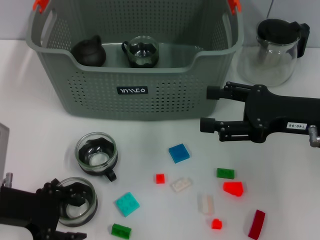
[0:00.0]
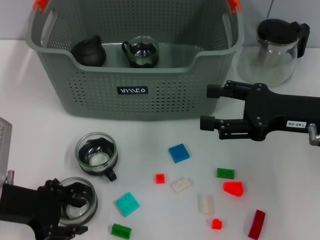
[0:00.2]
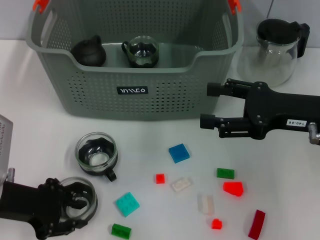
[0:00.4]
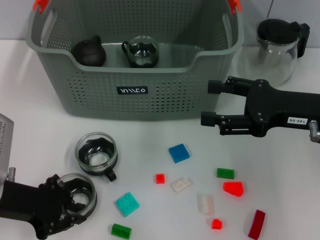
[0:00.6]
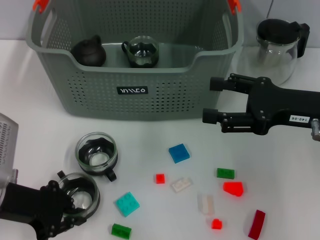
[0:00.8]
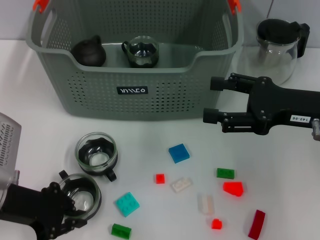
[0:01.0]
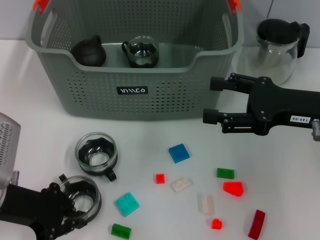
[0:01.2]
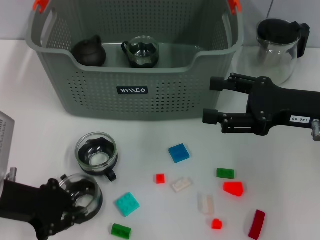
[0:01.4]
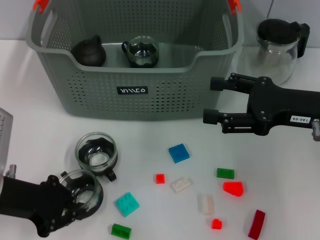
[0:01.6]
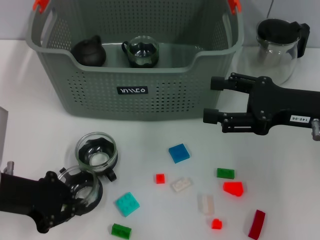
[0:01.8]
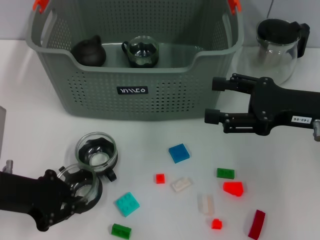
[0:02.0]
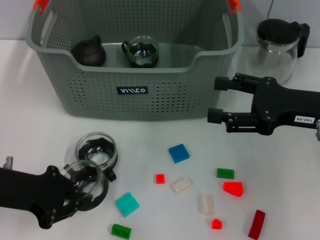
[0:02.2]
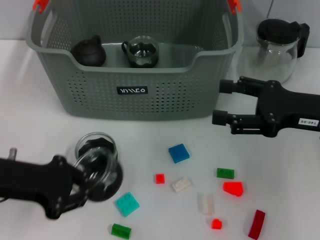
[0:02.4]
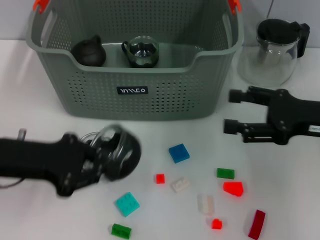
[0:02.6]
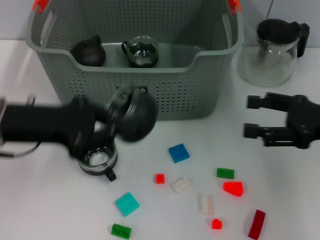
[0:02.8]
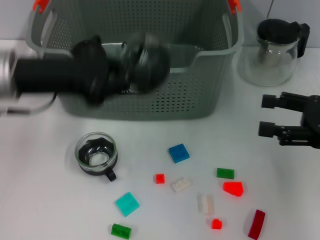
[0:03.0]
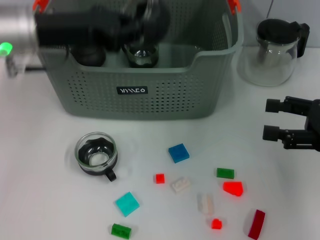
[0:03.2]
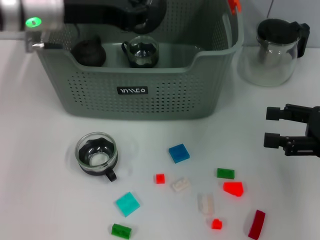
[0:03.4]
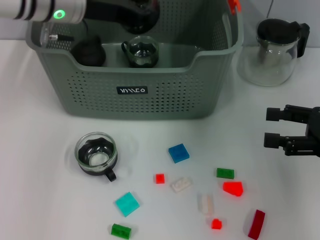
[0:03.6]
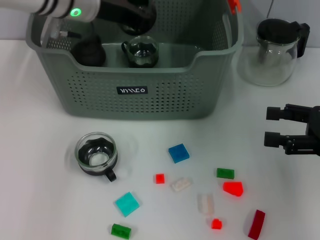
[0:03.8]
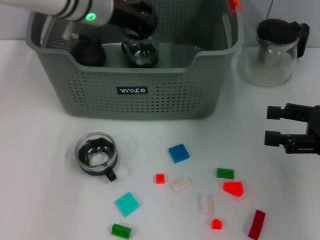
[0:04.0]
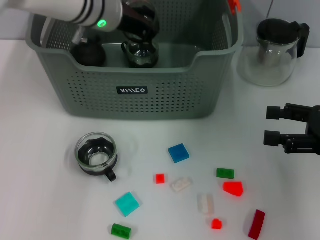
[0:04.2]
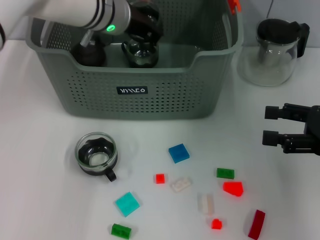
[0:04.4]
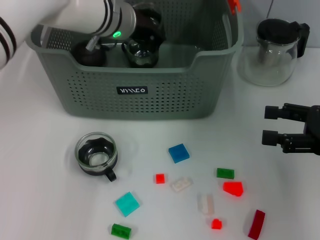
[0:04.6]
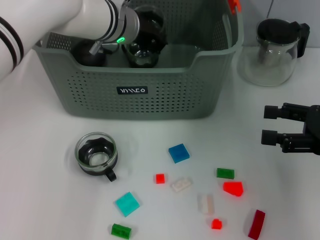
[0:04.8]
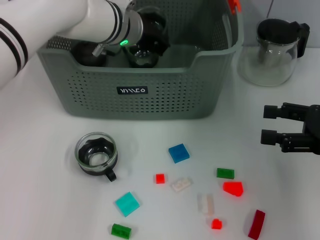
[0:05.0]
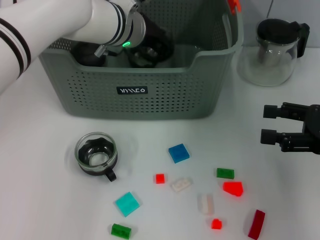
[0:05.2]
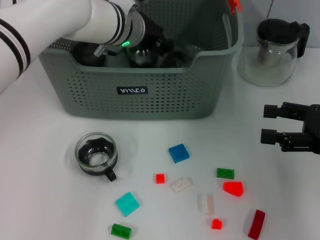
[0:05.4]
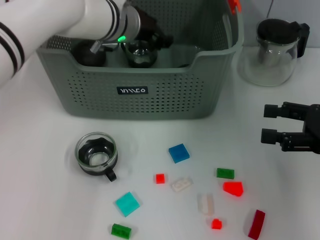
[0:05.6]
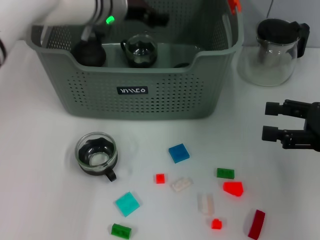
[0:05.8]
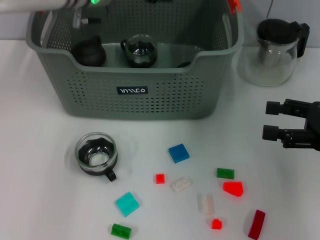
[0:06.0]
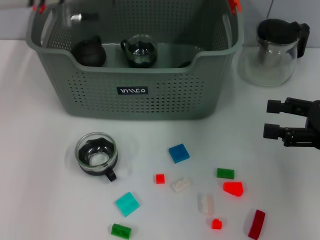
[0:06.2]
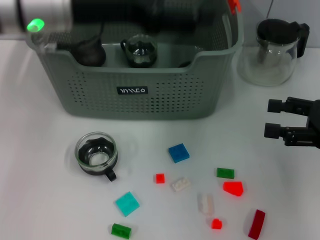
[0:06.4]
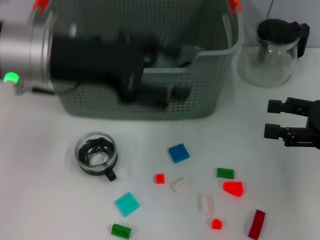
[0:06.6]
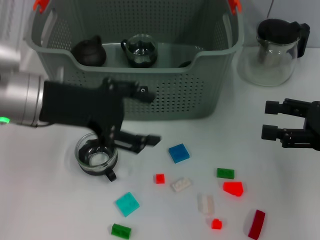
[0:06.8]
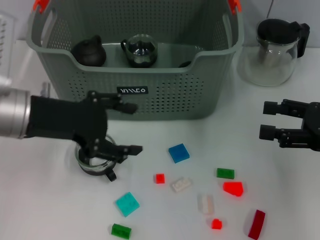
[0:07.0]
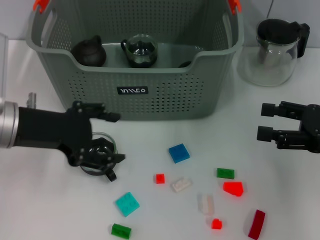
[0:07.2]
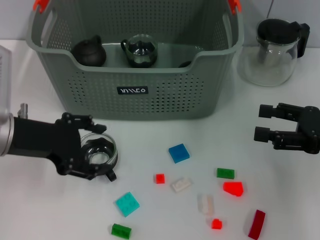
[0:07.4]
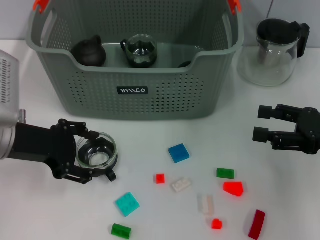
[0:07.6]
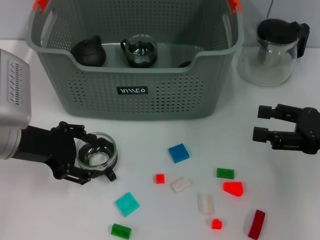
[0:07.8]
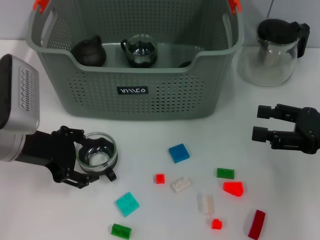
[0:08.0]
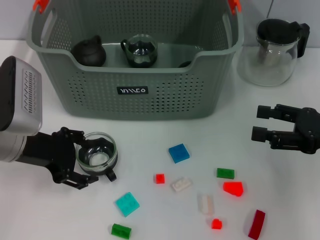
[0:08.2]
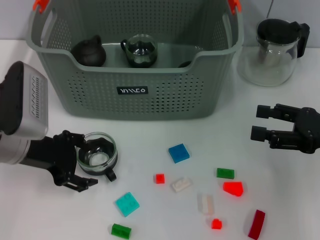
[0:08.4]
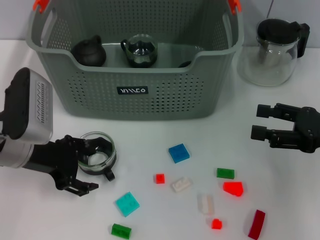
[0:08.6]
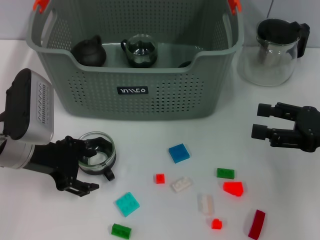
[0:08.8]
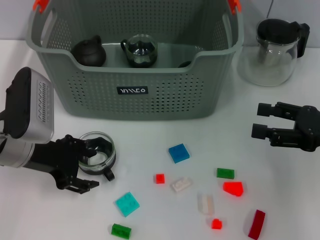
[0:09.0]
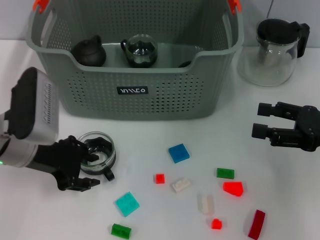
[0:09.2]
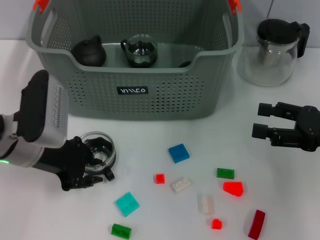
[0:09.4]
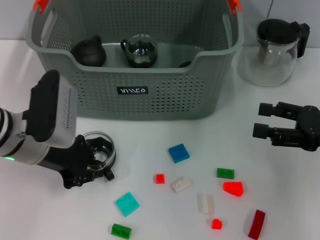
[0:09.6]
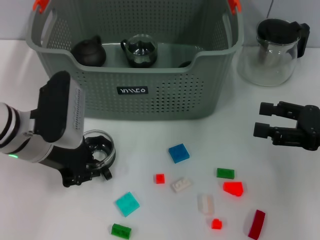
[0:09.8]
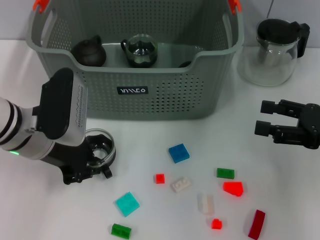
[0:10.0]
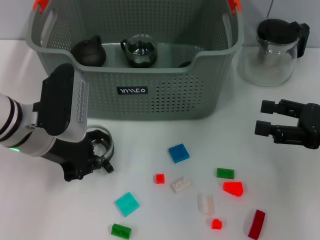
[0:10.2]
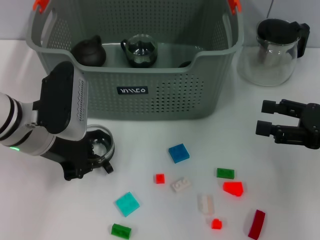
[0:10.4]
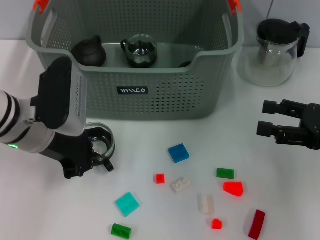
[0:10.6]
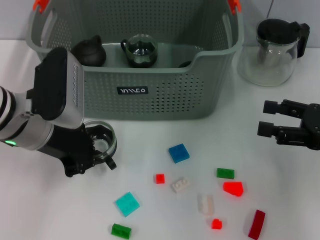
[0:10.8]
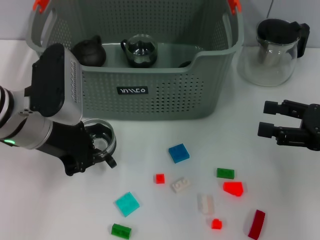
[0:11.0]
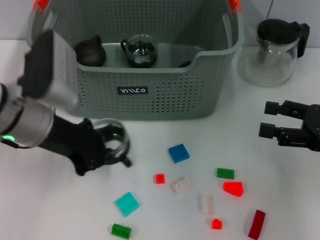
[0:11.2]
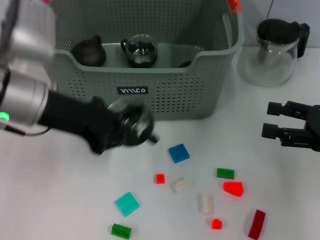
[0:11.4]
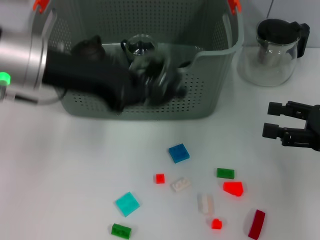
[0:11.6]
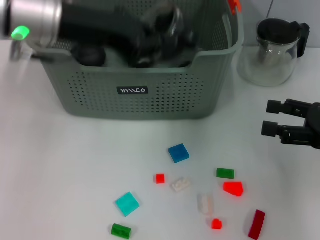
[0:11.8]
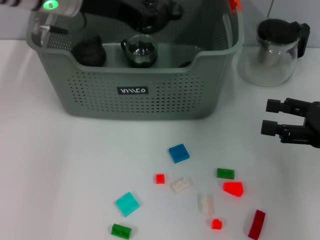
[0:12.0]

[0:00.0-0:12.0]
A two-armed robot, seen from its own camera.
Task of the whole recording: pick up the teacup on the table and place it into the storage bin, pick up the block on the table and place it into the storage bin.
Step, 0:01.6 to 0:05.8: Place the cup in the storage box with left gripper.
Step, 0:06.0 to 0:09.6: Grasp the cup with left gripper.
0:00.0 to 0:01.6: The left gripper closes up.
0:01.6 to 0:03.0: The right gripper is displaced to the right by about 5 cm, while the left gripper shifts approximately 10 cm upward and forward.
0:03.0 to 0:04.4: The left gripper shifts approximately 20 cm forward and to the right.
0:04.4 to 0:06.0: The left gripper opens up.
0:06.0 to 0:07.6: The left gripper heads backward, to the left and downward, covering roughly 20 cm.
0:07.6 to 0:09.0: The grippers move only a little.
0:09.0 to 0:10.4: The left gripper closes.
0:10.4 to 0:12.0: The left gripper heads upward and forward, covering about 15 cm.

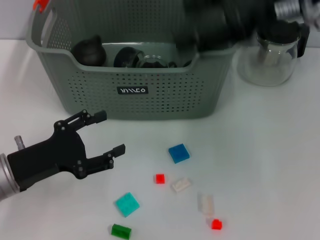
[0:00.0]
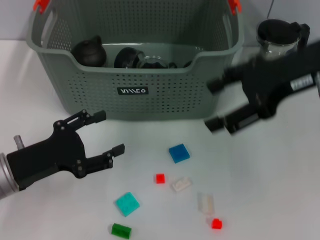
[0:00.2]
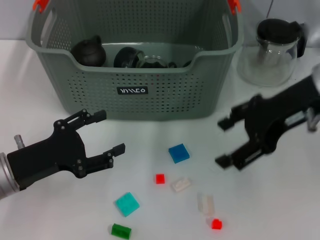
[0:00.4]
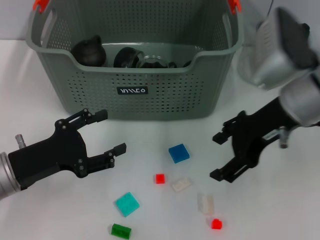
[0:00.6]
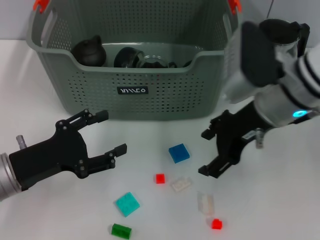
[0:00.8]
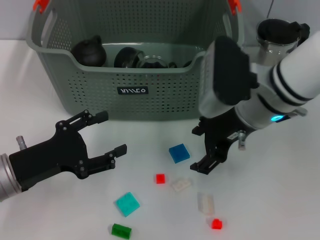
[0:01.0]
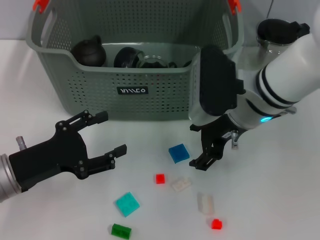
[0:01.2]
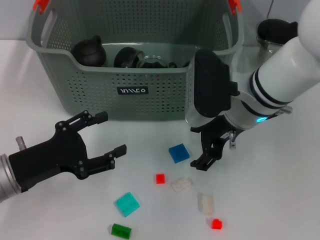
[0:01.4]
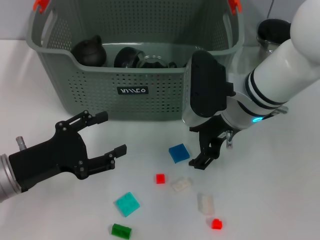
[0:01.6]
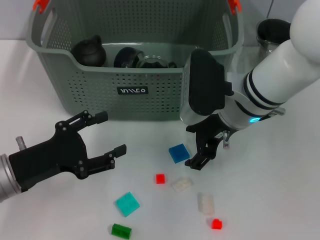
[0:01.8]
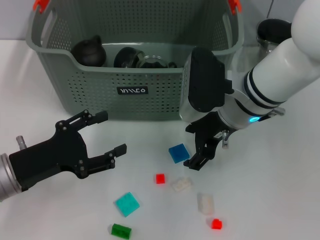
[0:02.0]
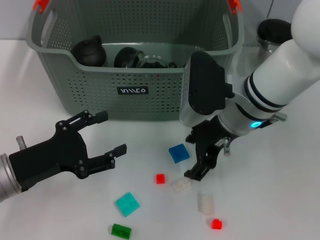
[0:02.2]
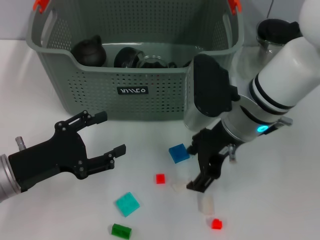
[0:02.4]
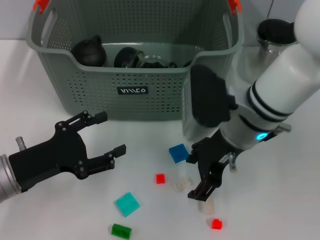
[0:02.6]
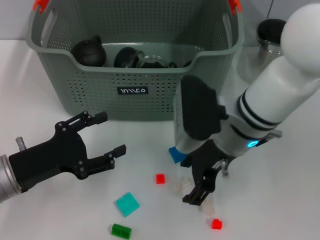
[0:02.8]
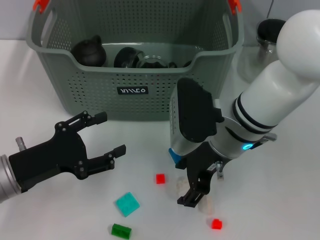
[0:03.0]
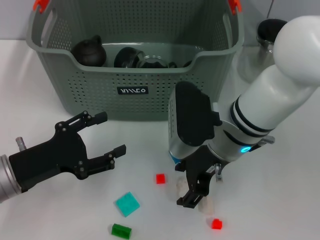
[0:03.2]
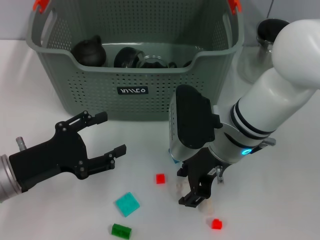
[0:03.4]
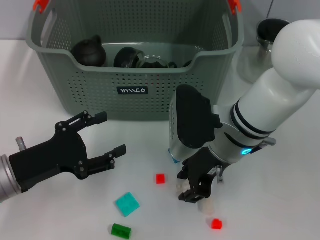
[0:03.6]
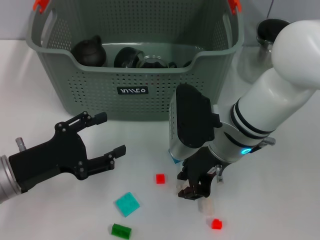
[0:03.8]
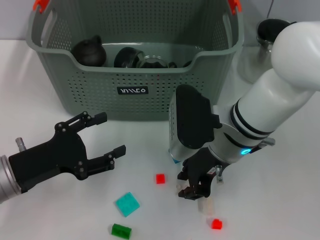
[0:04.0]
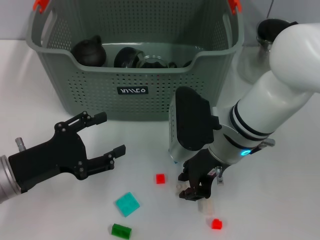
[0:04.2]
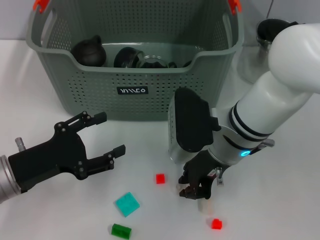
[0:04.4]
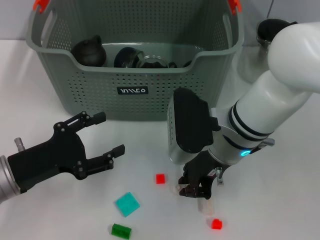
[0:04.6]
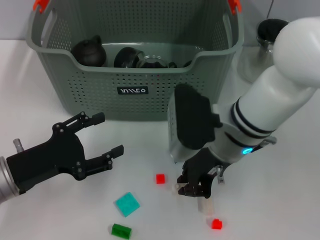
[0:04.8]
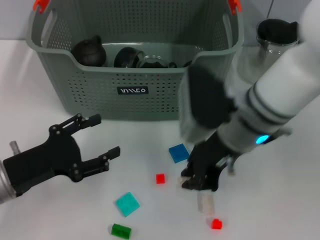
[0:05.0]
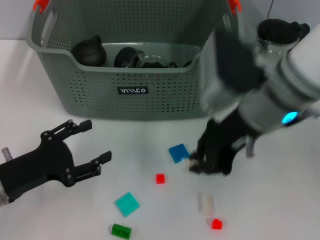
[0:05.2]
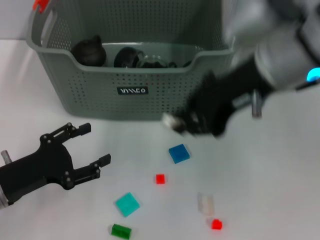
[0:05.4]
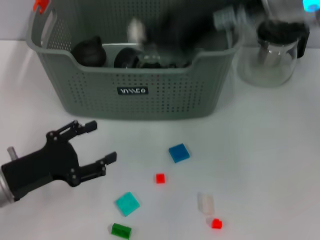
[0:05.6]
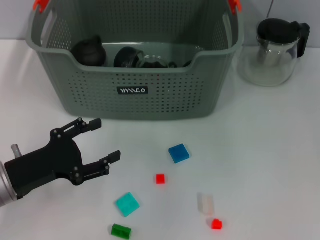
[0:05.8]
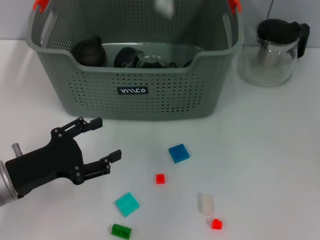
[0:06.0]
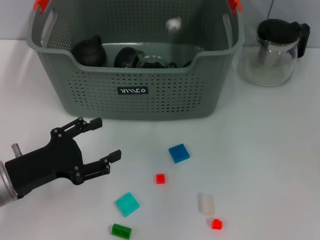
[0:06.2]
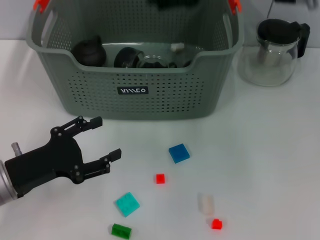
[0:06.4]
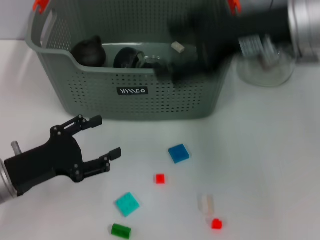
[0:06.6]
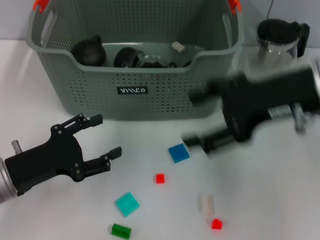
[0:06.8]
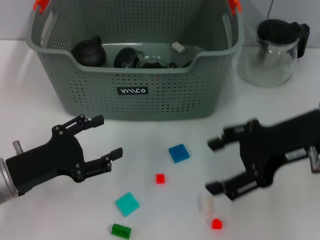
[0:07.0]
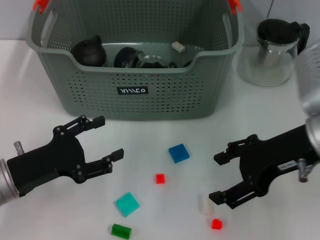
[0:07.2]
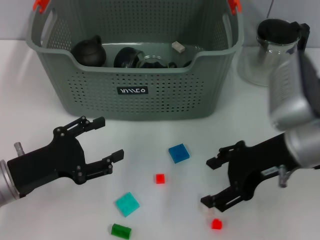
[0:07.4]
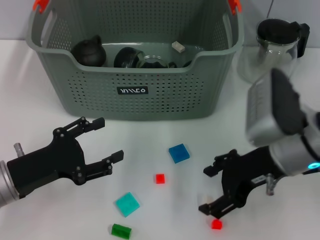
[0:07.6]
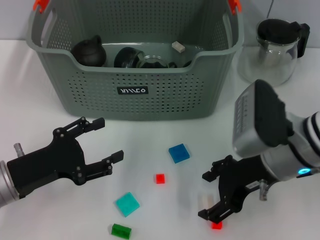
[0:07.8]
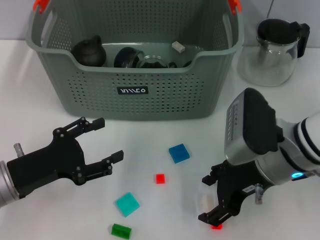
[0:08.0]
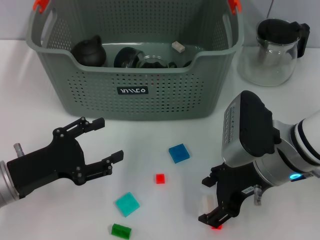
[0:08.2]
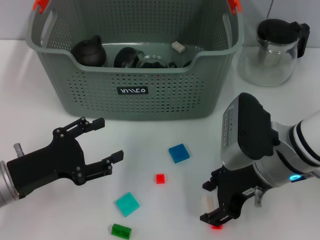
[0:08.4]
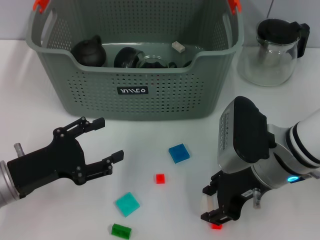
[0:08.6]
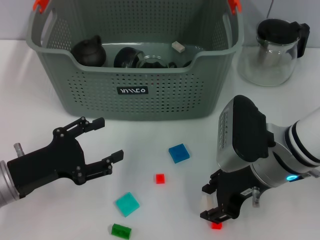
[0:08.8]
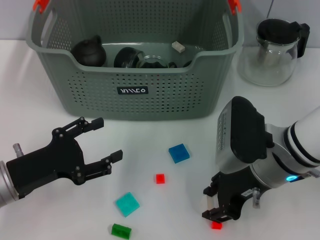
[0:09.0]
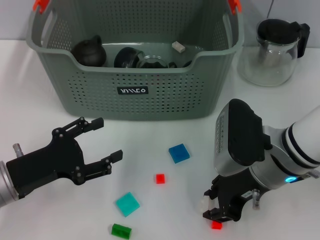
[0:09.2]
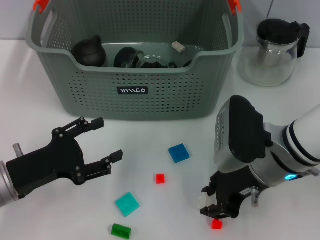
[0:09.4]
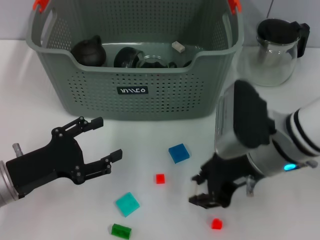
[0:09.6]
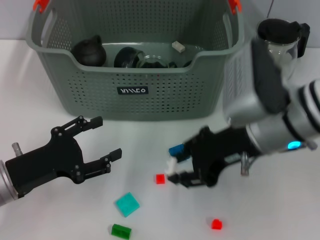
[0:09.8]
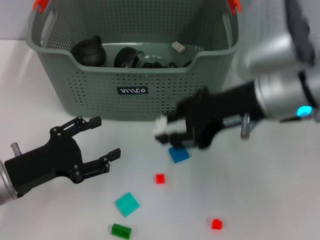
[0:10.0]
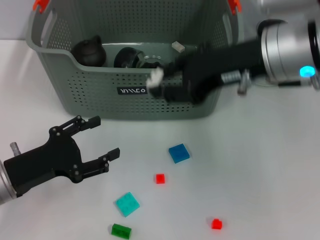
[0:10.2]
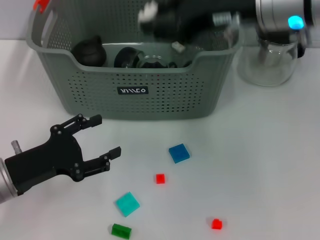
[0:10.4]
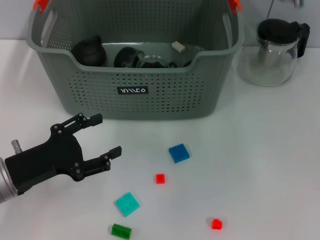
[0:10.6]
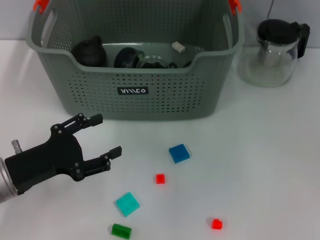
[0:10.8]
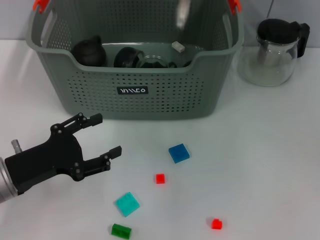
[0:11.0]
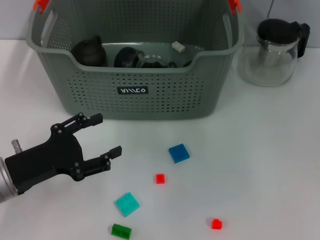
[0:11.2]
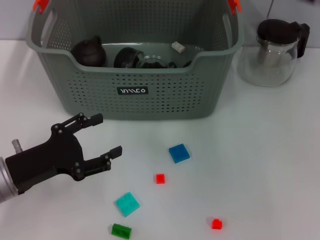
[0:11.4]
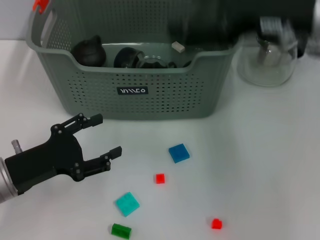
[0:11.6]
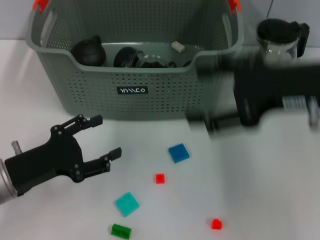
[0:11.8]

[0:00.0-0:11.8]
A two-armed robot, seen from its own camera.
Task of the whole recording: pick up the teacup on the table and place it into the storage bin, pick up the block on the table and place it into the storage bin.
Step, 0:00.0 to 0:04.8: Grasp the white block with right gripper.
Step, 0:05.0 to 0:06.6: Place the white block in the storage box with right gripper.
Step, 0:06.8 to 0:09.4: Grasp the white block with right gripper.
Step, 0:09.8 to 0:11.4: Place the white block in the storage box with right gripper.
0:00.0 to 0:01.4: The right gripper shifts some 15 cm downward and to the left.
0:01.4 to 0:03.0: The grippers move only a little.
0:03.0 to 0:04.4: The right gripper closes.
0:04.4 to 0:06.0: The right gripper shifts about 20 cm upward and forward.
0:06.0 to 0:07.4: The right gripper travels downward, backward and to the right by roughly 20 cm, and opens up.
0:07.4 to 0:08.8: The right gripper shifts by roughly 5 cm.
0:08.8 to 0:10.4: The right gripper goes some 15 cm upward.
0:10.4 to 0:11.8: The right gripper moves to the right, backward and downward, about 10 cm, and opens up.
